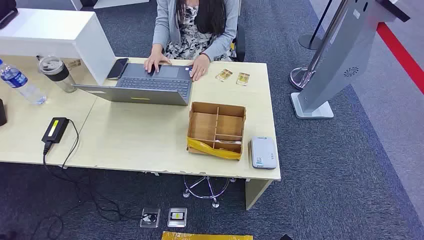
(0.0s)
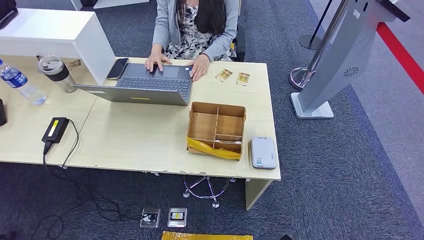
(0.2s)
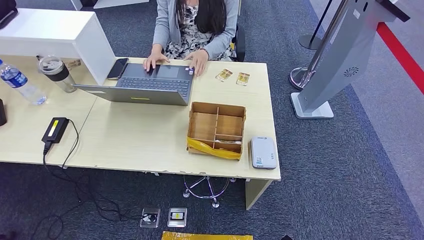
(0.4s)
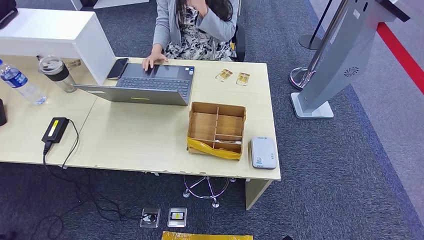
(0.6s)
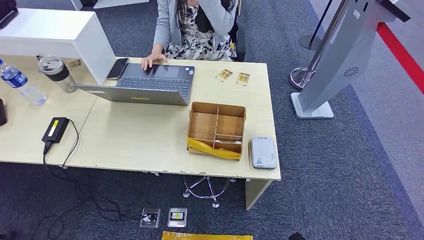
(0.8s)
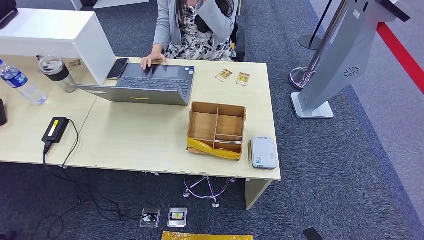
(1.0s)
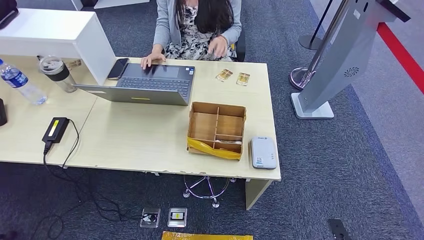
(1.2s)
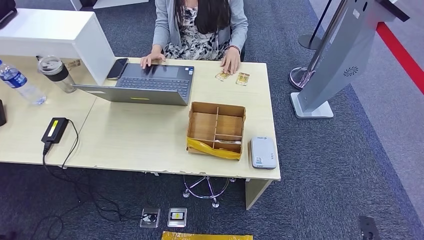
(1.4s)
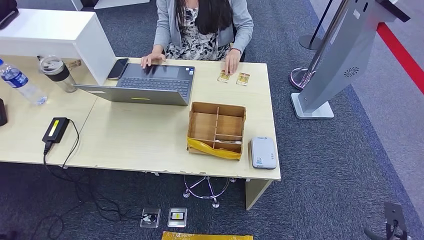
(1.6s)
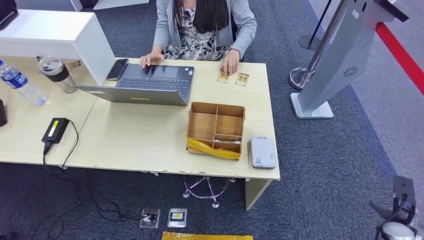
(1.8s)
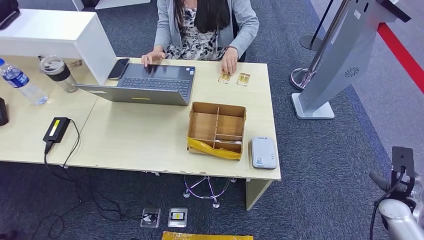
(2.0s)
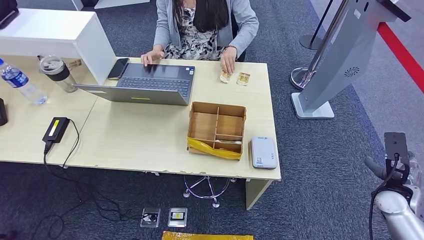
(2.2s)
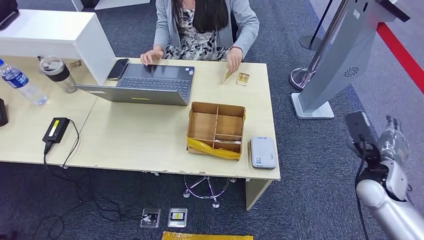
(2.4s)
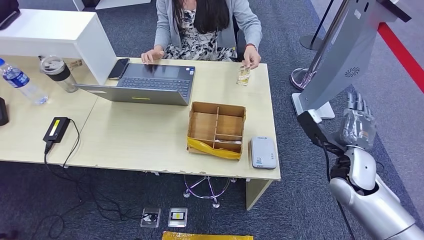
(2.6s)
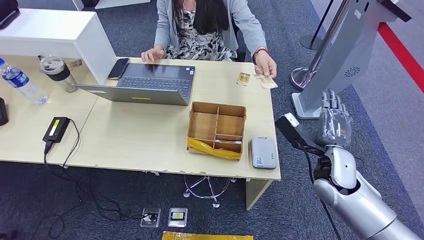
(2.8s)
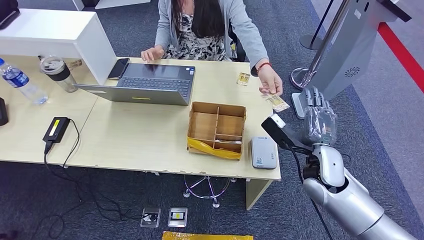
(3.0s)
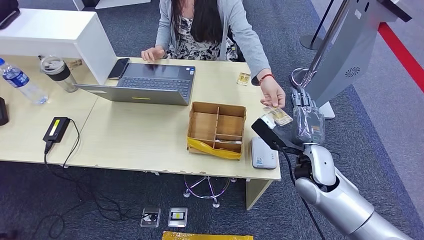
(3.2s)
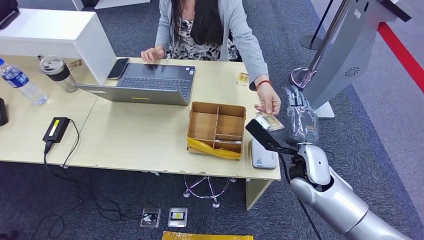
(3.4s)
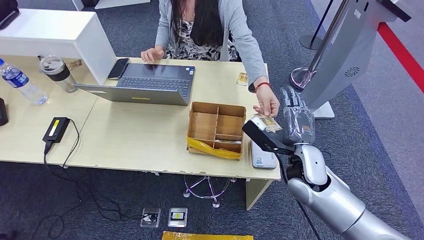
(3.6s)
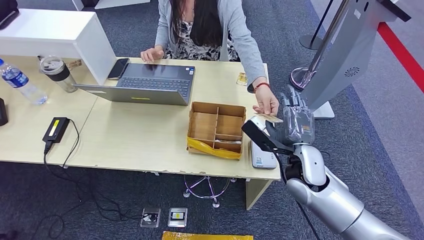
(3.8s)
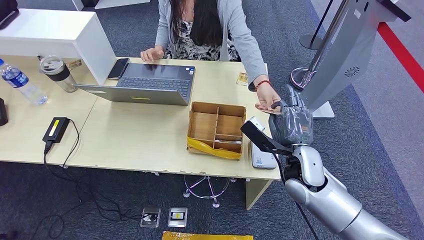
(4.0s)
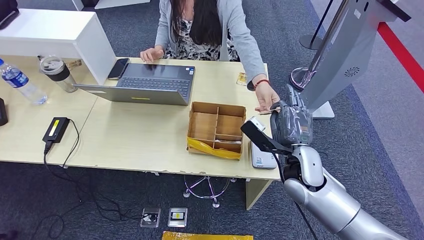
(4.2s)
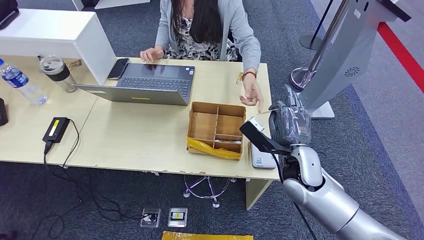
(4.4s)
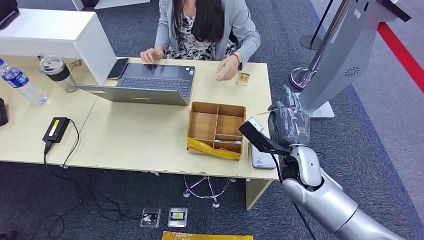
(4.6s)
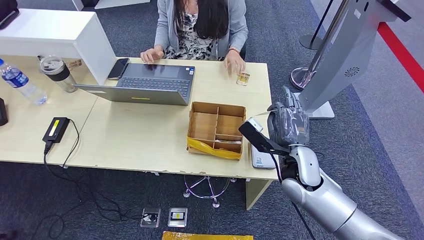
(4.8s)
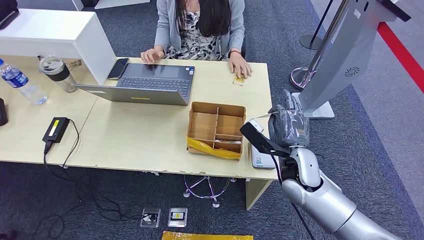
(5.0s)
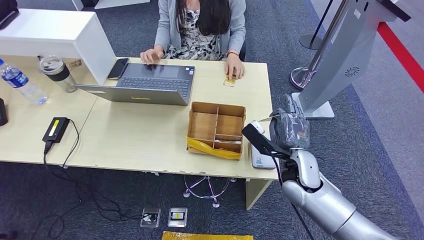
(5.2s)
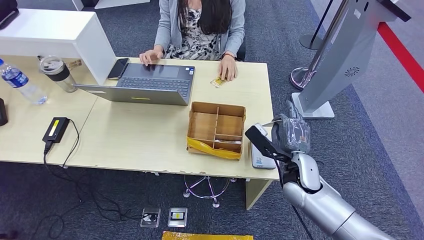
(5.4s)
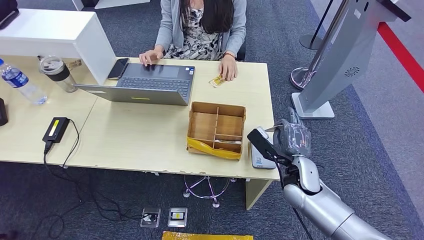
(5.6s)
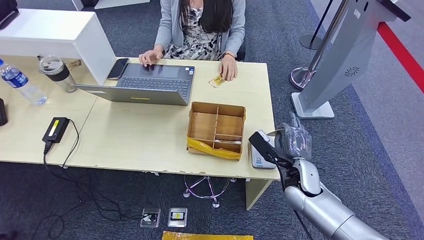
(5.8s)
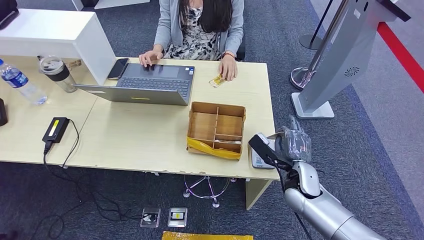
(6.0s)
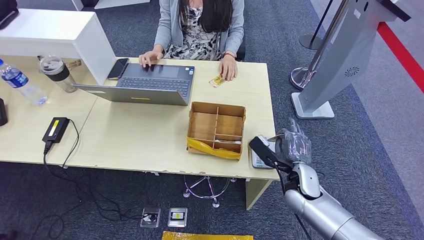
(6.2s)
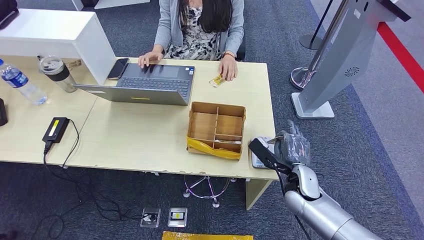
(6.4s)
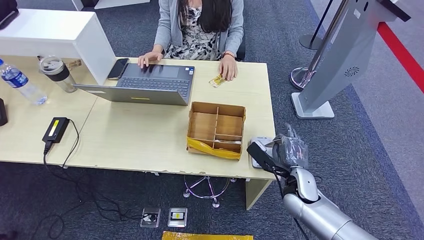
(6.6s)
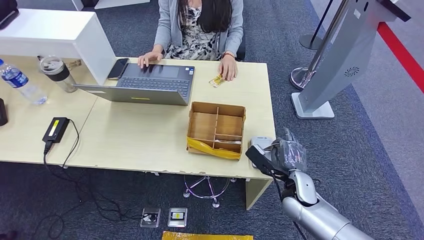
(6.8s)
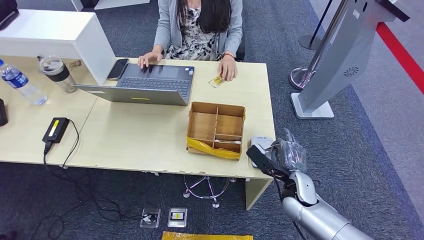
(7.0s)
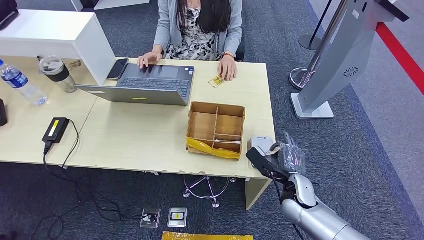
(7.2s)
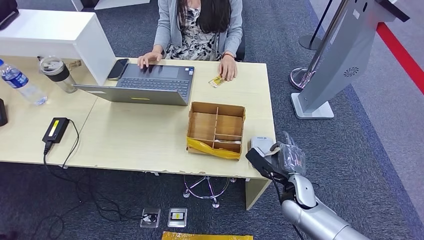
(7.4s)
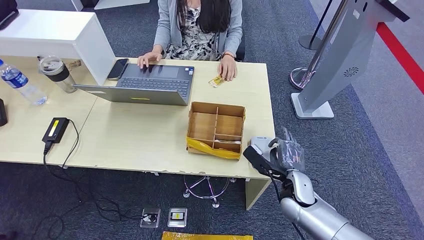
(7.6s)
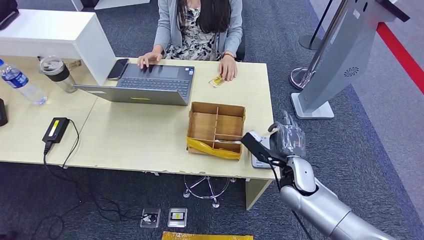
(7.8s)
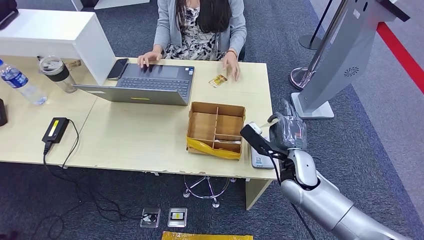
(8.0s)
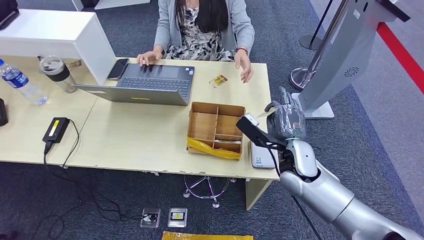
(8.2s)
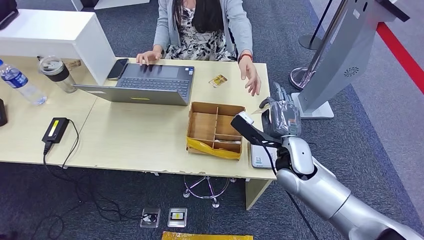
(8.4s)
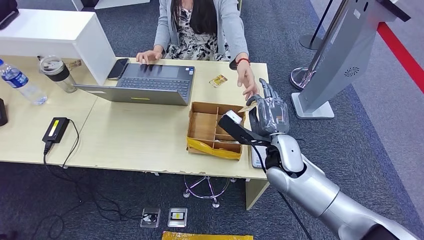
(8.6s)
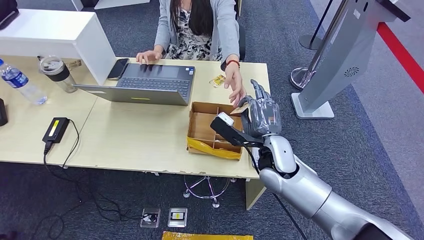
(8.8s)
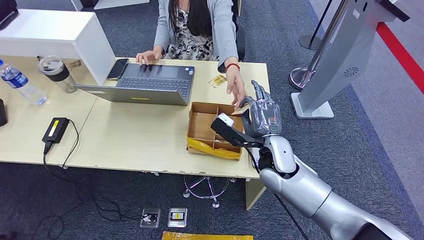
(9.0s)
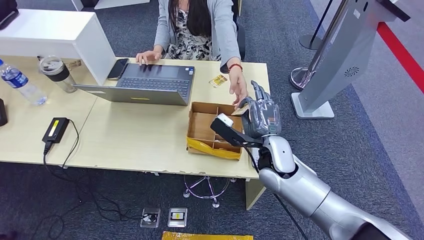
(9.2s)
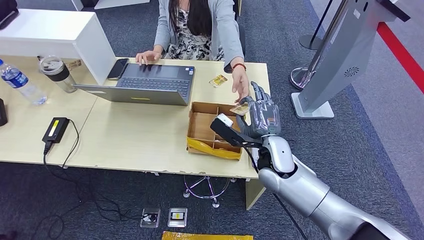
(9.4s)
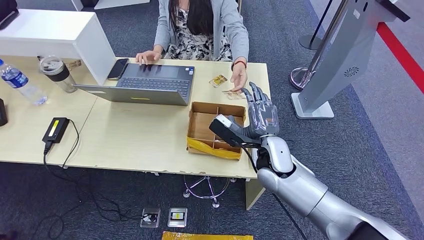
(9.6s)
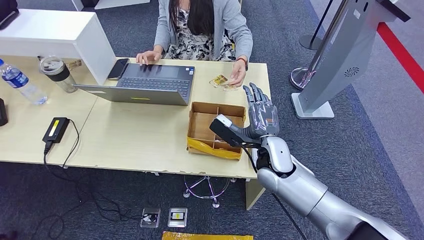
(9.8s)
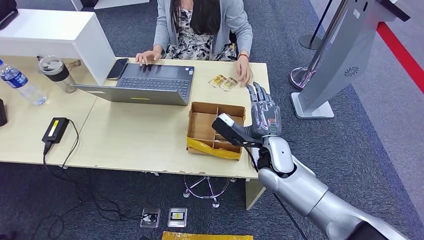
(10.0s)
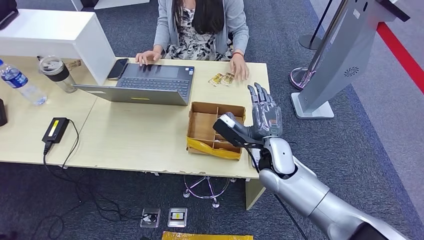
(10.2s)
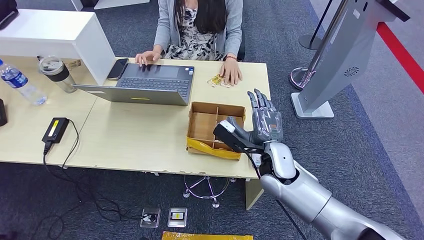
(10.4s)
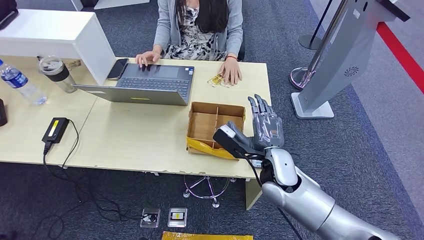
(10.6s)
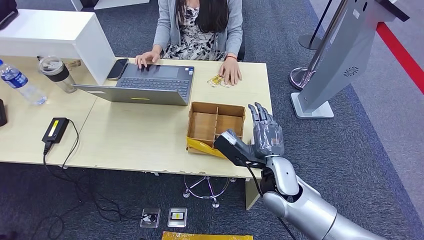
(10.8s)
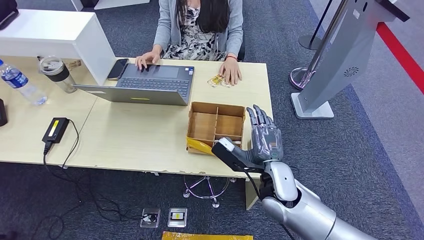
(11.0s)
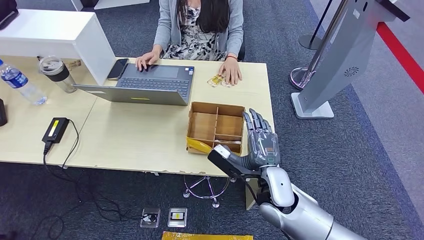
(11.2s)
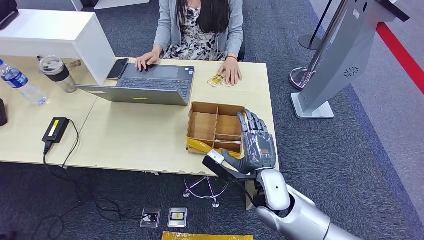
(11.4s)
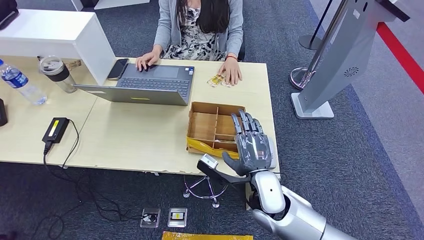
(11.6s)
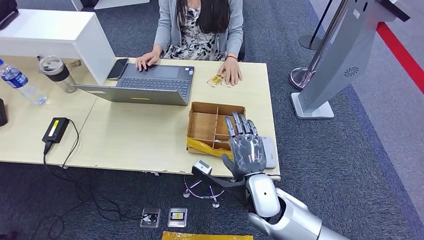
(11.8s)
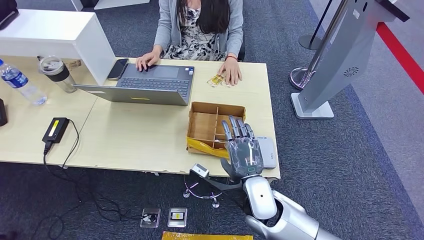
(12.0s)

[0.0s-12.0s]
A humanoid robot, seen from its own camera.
Step, 0.0s to 4.8s: Take the ID card from the person's hand.
Step, 5.0s to 7.4s: Place the ID card on the card reader.
Step, 7.6s to 9.6s: Hand the ID card to the person.
1.6s to 3.0s: The right hand travels to the left, upward and forward by roughly 35 cm.
3.0s to 4.4s: The right hand shifts some 5 cm to the left.
4.4s to 6.0s: The right hand shifts about 5 cm downward.
6.0s to 7.6s: The hands make only small movements.
7.6s to 9.0s: The right hand shifts roughly 15 cm upward and to the left.
9.0s to 10.4s: There are only small adjustments of the hands.
10.4s to 12.0s: The right hand is displaced backward by roughly 10 cm.

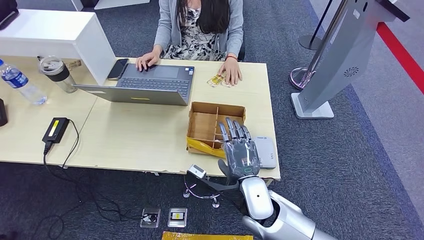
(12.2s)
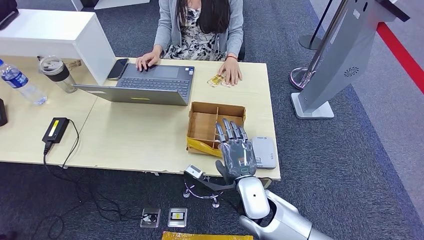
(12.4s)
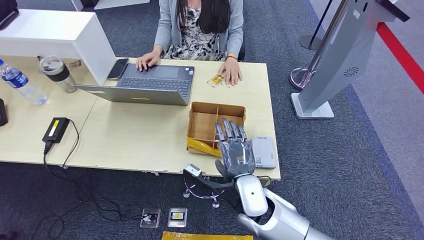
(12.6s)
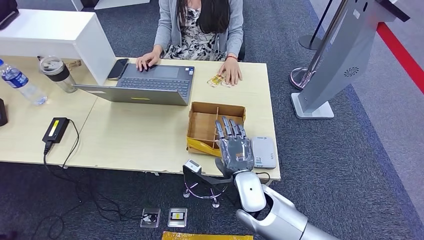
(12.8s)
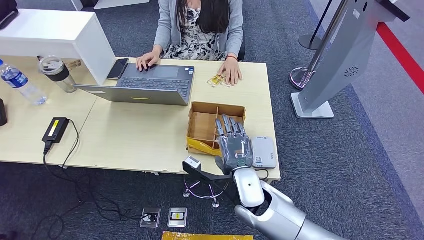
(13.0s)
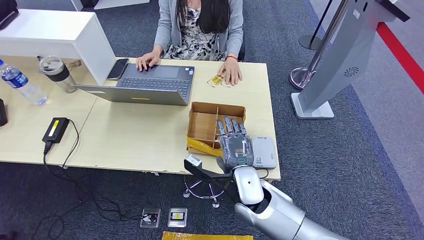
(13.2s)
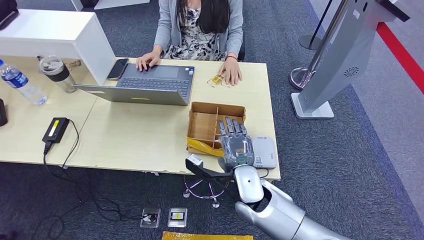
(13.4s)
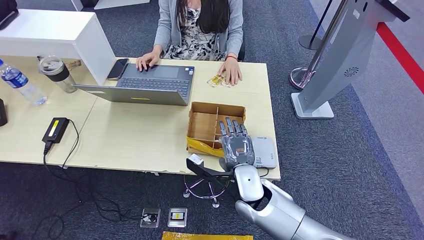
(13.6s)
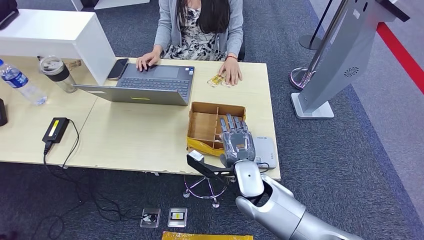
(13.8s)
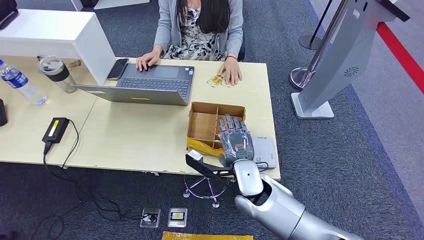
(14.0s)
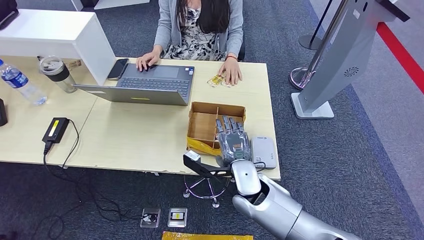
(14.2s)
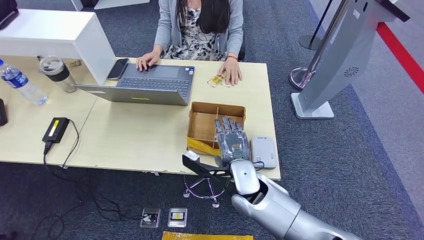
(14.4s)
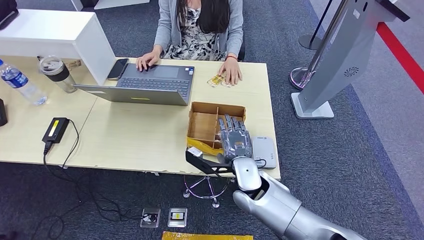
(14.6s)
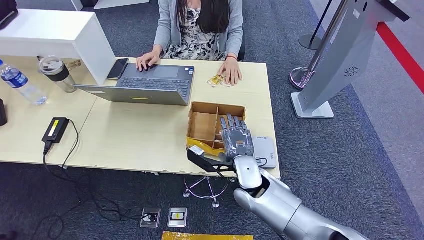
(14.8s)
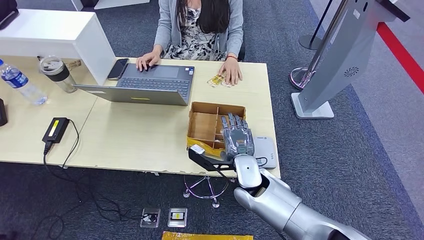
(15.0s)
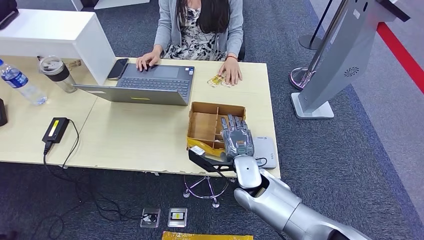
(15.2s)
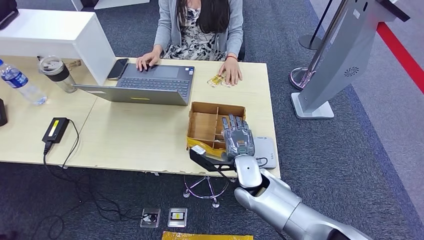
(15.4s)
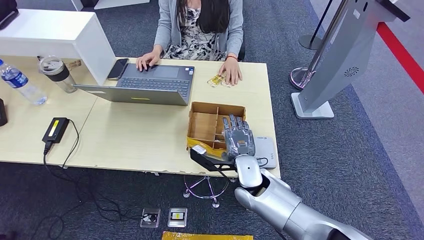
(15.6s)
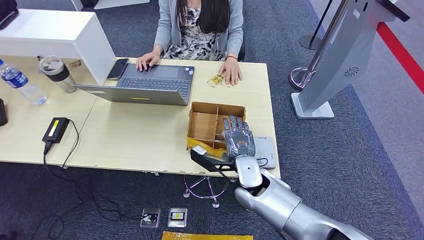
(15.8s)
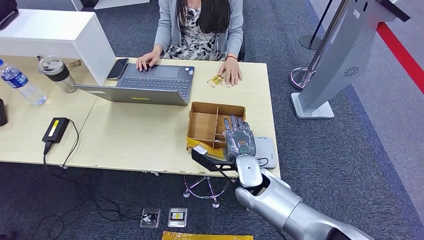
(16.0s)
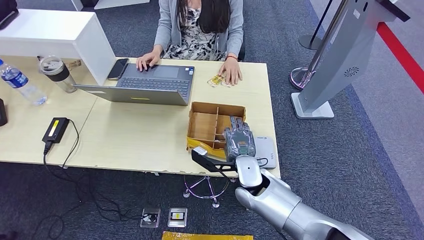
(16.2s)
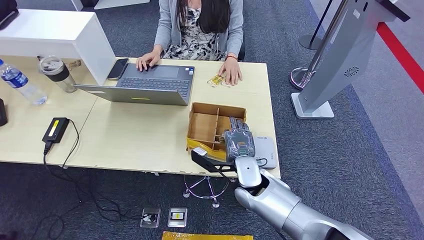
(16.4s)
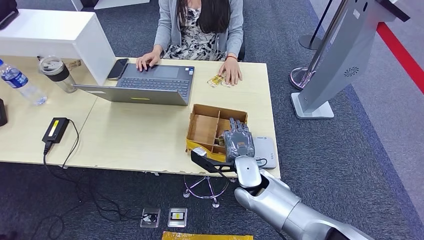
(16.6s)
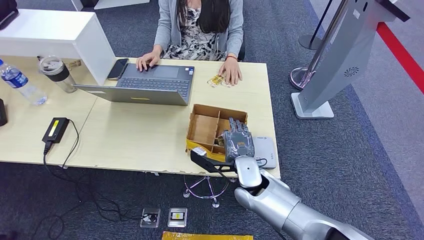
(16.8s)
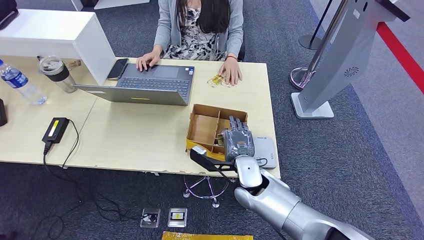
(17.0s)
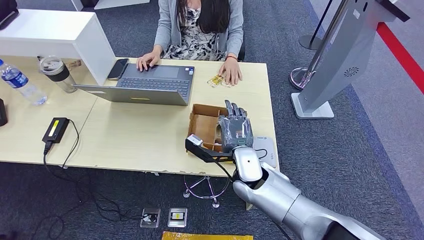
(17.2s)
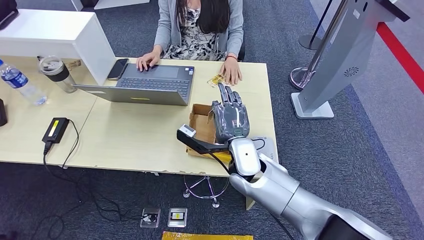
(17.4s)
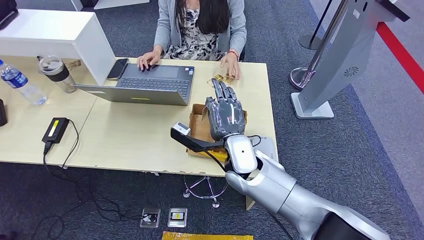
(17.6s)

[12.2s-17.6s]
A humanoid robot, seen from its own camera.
12.2s to 15.0s: The hands stay close to where they were, moving slightly.
15.0s to 16.2s: Neither hand changes place.
16.2s to 17.6s: The right hand is displaced upward by some 5 cm.
